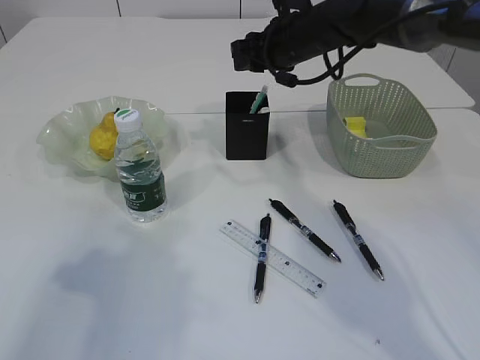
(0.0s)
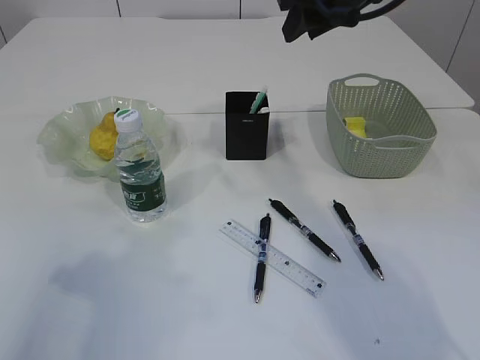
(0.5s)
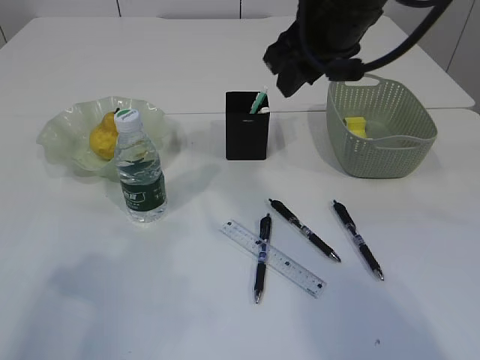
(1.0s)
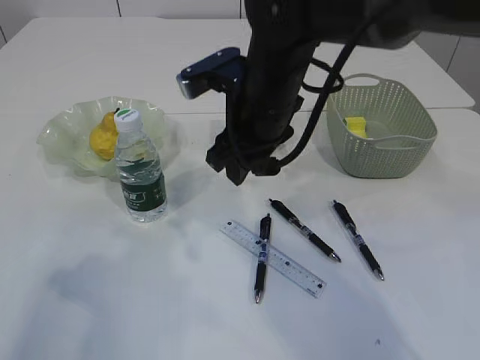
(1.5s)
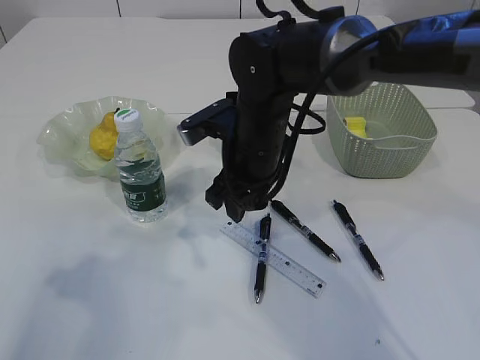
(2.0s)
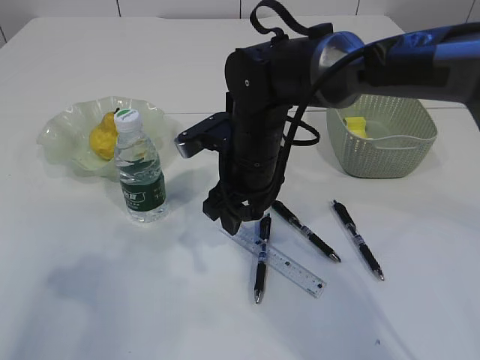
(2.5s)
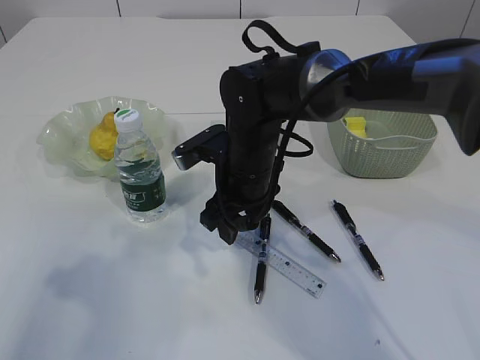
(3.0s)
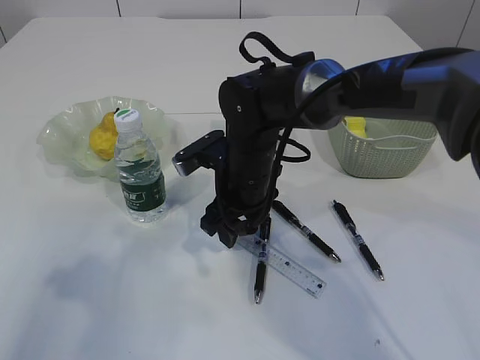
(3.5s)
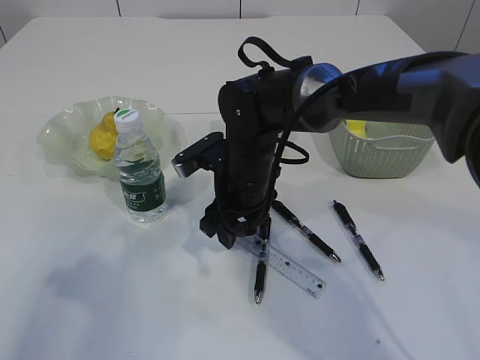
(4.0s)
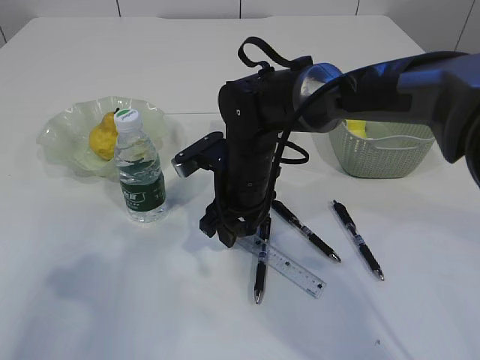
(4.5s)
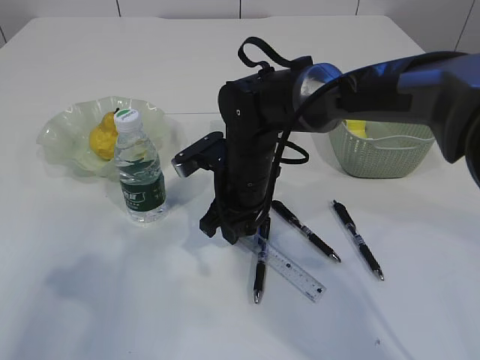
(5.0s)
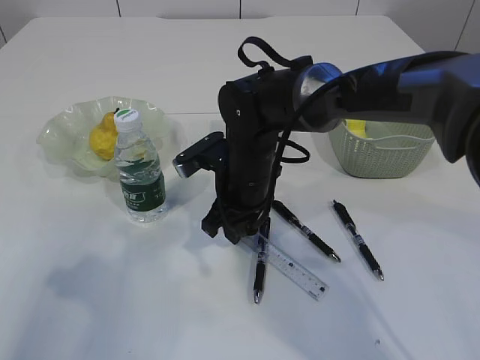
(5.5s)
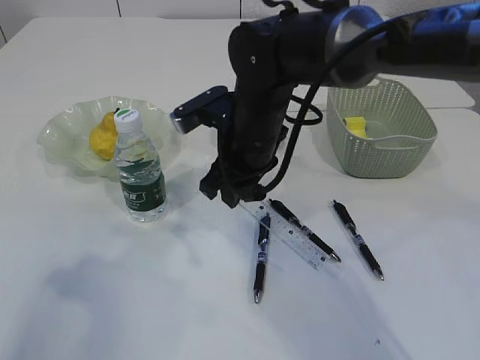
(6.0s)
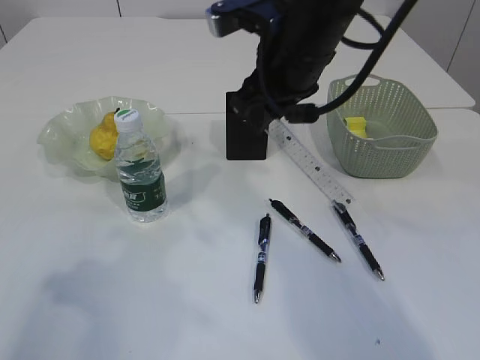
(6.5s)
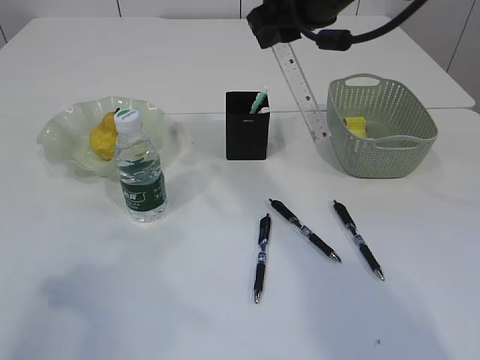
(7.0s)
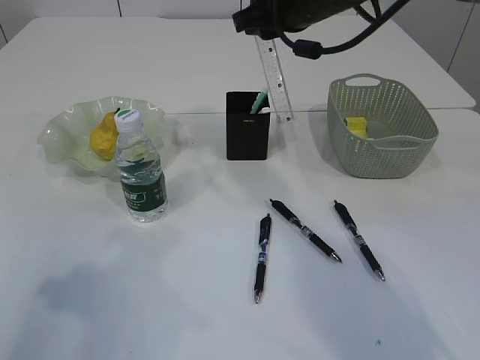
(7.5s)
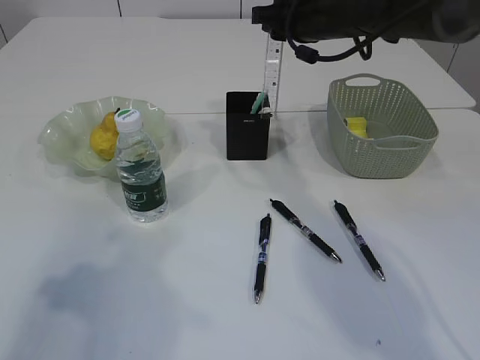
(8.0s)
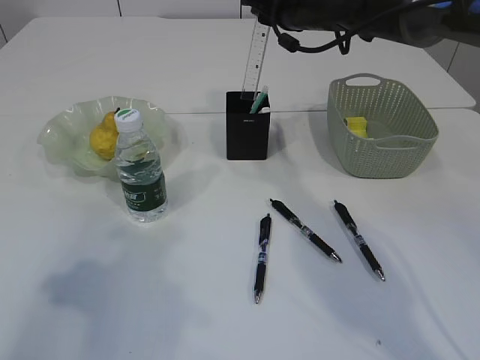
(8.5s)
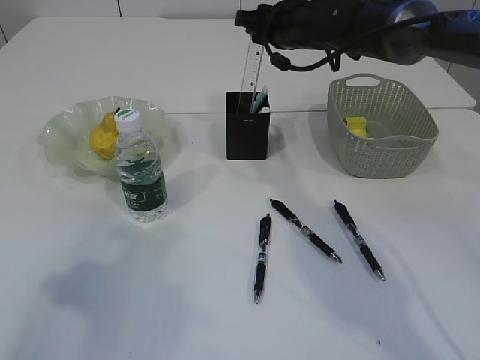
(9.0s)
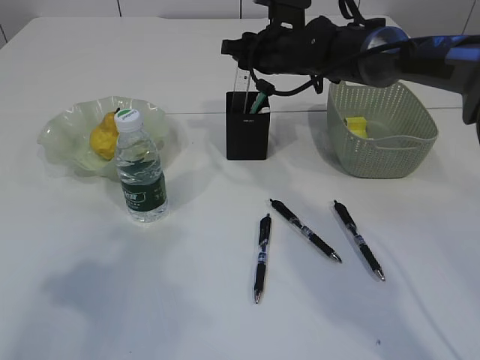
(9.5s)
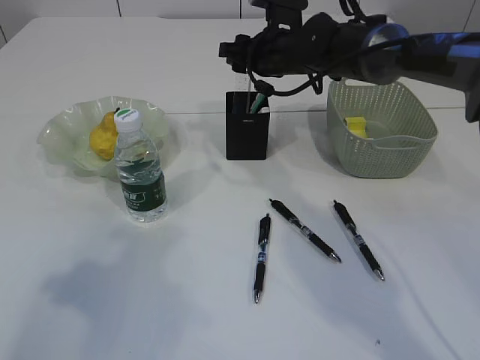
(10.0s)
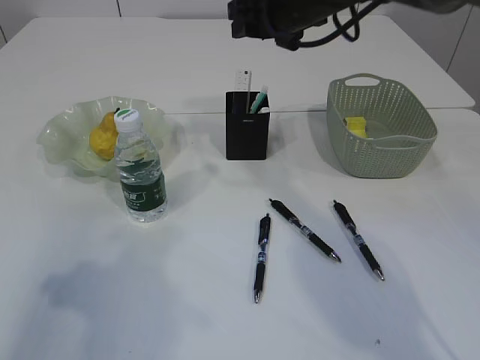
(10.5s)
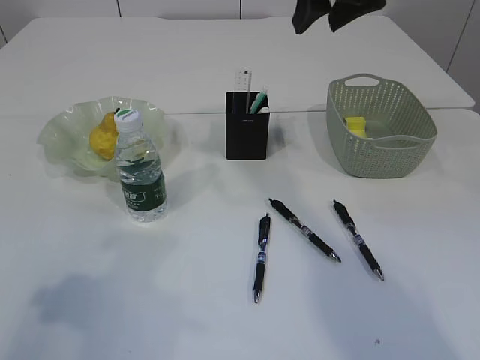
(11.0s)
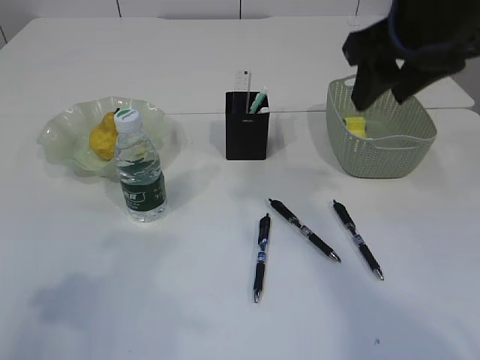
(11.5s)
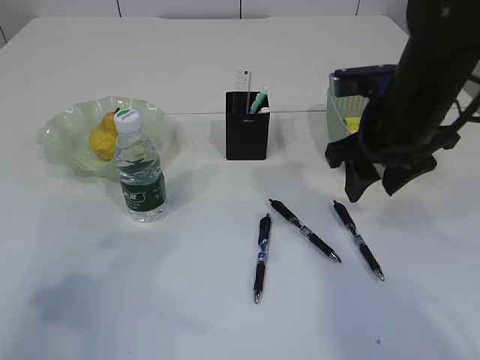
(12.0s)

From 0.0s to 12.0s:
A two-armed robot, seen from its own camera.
Step, from 0.5s to 6.5s: pick up the ruler.
Step, from 7.0s to 11.5s: Place the ruler into the pen holder.
From 0.0s to 2.0s: The right gripper travels backward, to the left and downward by about 15 cm.
From 2.0s to 4.0s: The grippers make only small movements.
From 4.0s to 6.0s: The right gripper moves upward, approximately 5 cm, and closes.
From 6.0s to 8.0s: The right gripper is displaced forward, to the right and upward by roughly 15 cm.
From 8.0s to 10.0s: The right gripper moves downward, roughly 5 cm.
From 10.0s to 12.0s: The right gripper is displaced backward and to the right by approximately 20 cm.

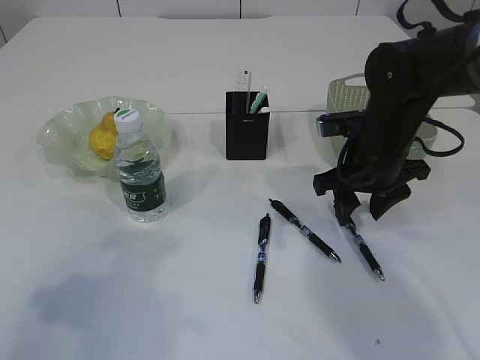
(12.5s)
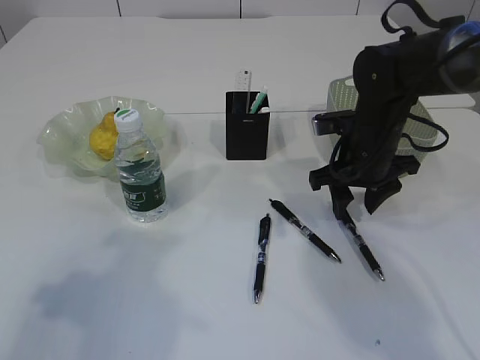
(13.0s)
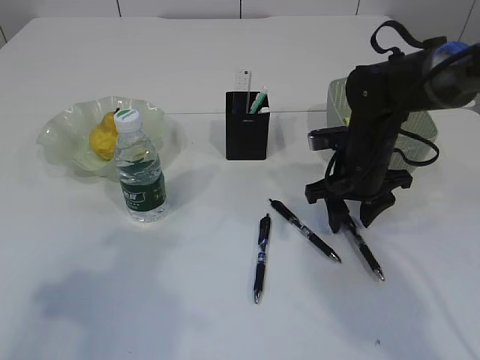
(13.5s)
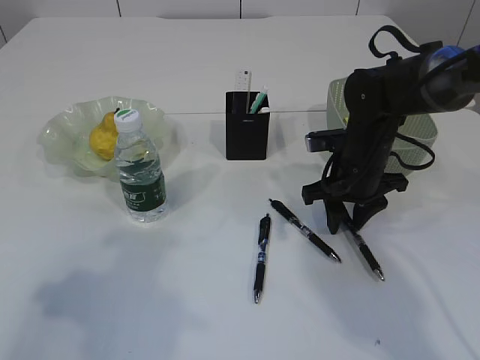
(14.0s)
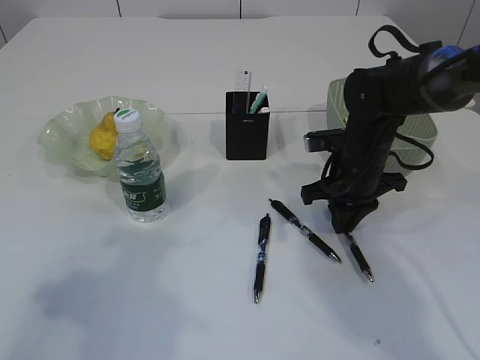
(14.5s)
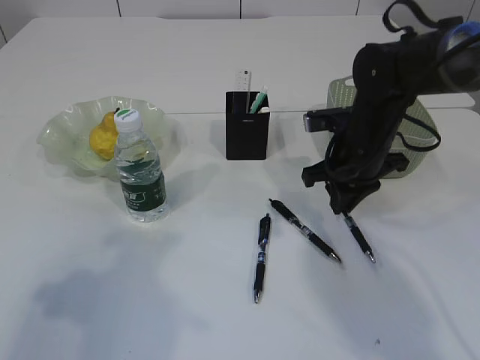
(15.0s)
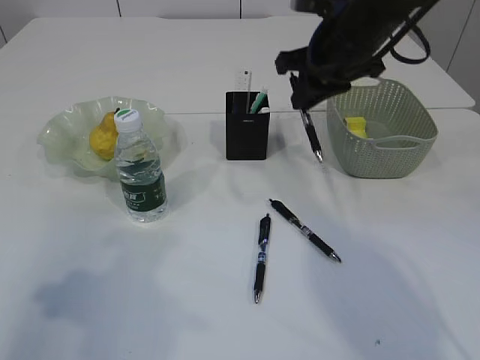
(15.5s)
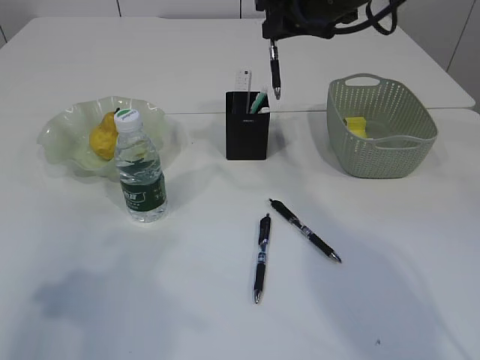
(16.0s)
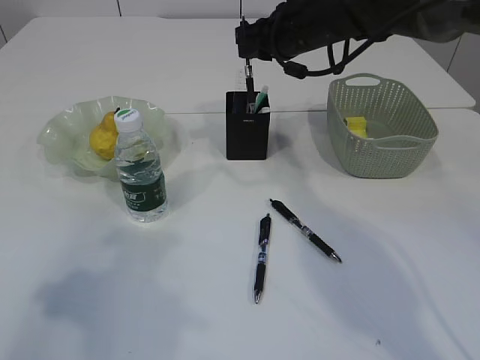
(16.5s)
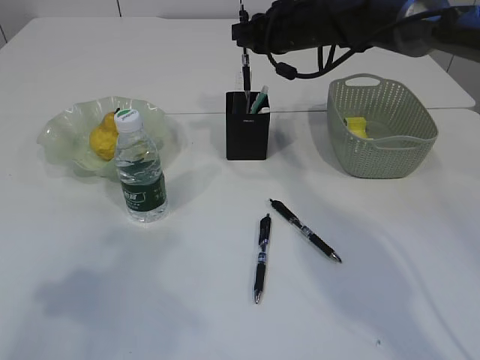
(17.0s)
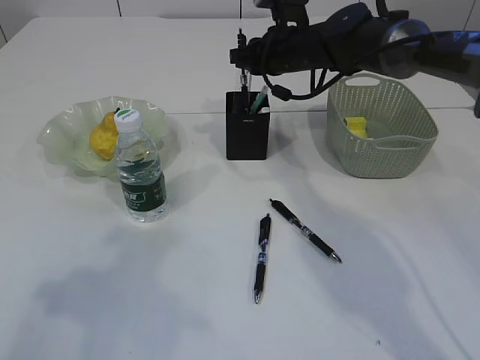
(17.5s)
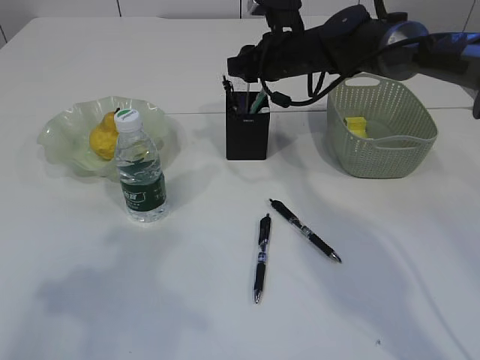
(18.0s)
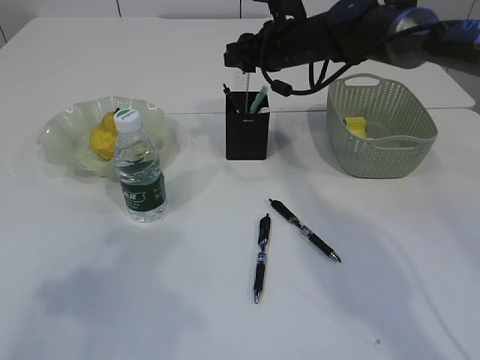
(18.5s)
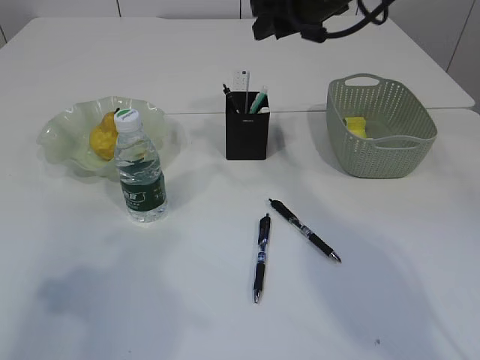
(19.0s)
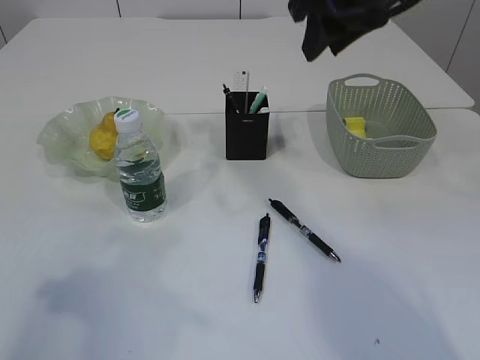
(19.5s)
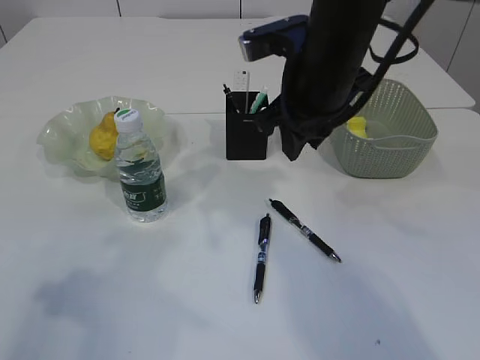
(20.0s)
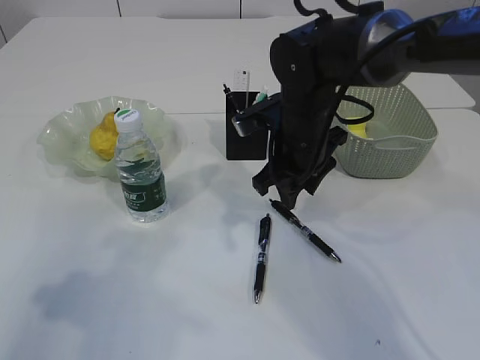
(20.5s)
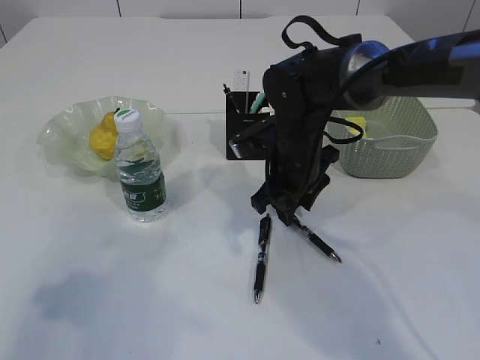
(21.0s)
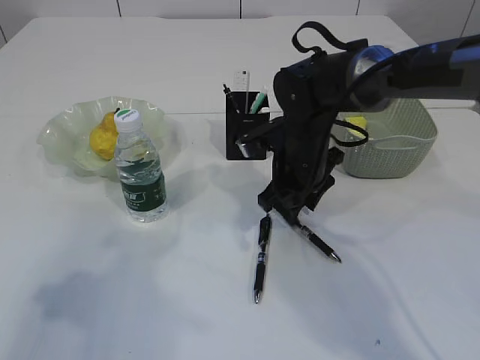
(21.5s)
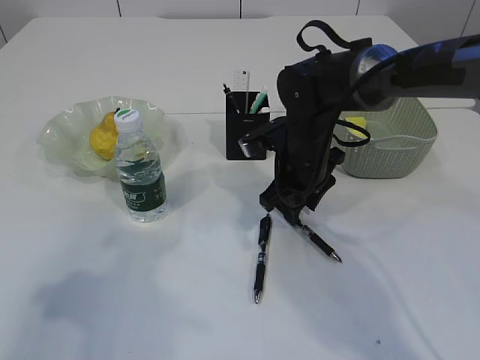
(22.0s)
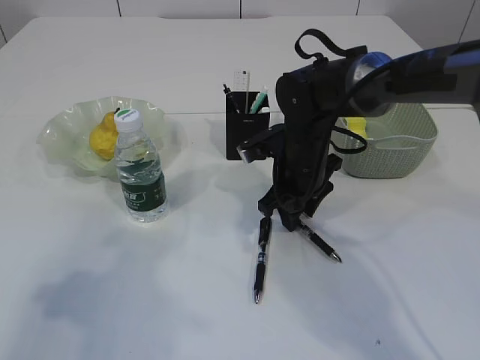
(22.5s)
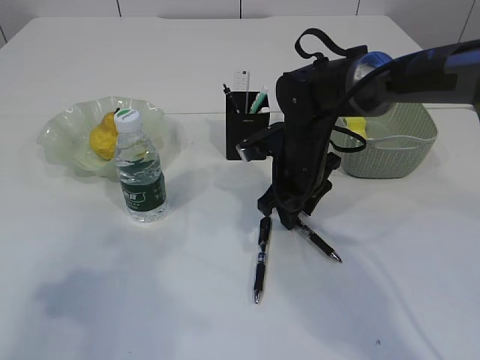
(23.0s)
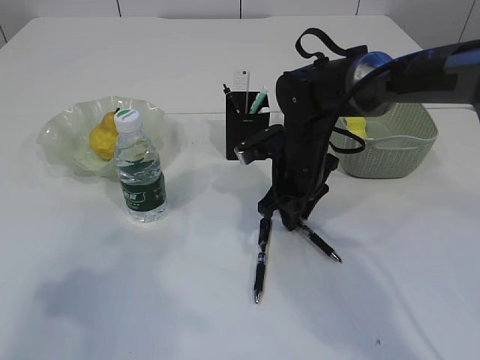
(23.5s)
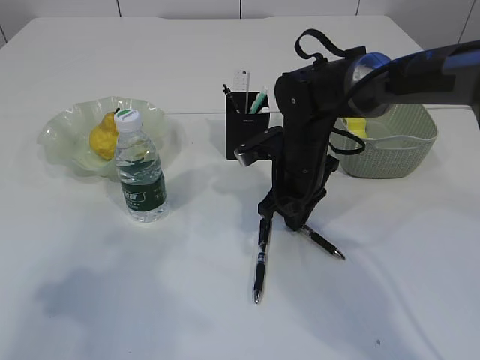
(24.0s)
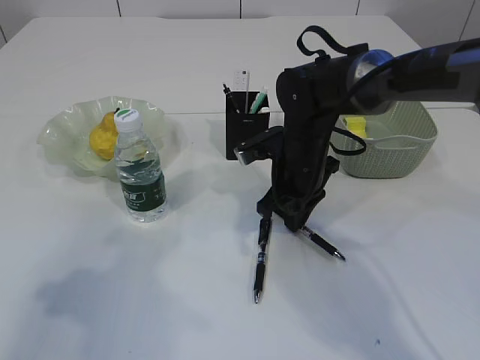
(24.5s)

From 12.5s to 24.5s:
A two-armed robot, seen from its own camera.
Step, from 12.5s to 15.5s: Pick up the pen with right arm.
Step, from 16.0s to 18.5s: Place the pen into the pen holder.
From 12.5s to 14.5s: The right gripper changes place by about 5 cm, and closes its fingers.
From 14.5s to 16.5s: The right gripper shifts about 20 cm upward, forward and to the left.
From 16.5s to 18.5s: The right gripper opens up.
From 18.5s to 20.5s: The right gripper shifts some 15 cm backward, and moves roughly 15 cm upward and comes back.
From 20.5s to 22.5s: The right gripper changes place by some 5 cm.
From 22.5s to 24.5s: The right gripper closes its fingers.

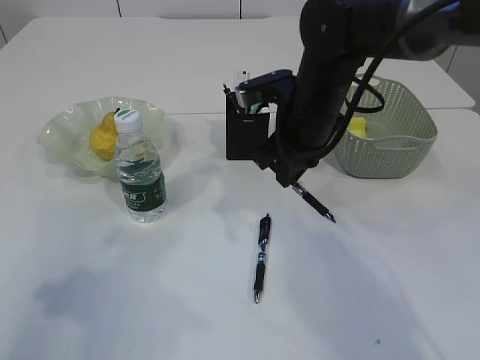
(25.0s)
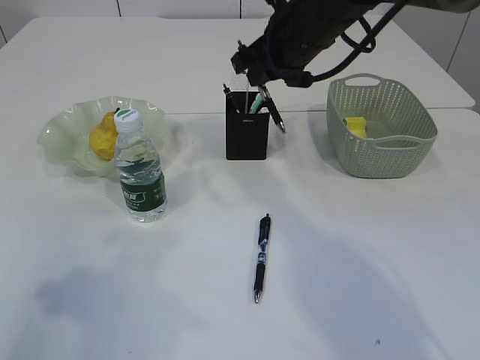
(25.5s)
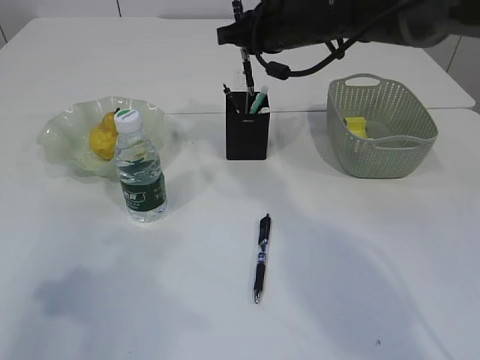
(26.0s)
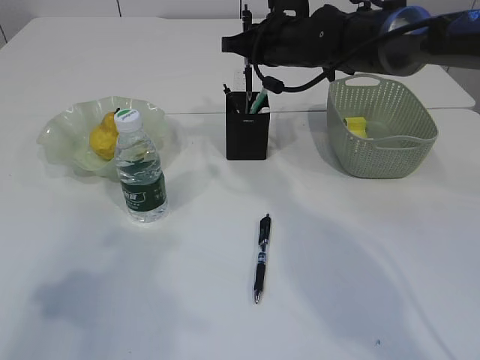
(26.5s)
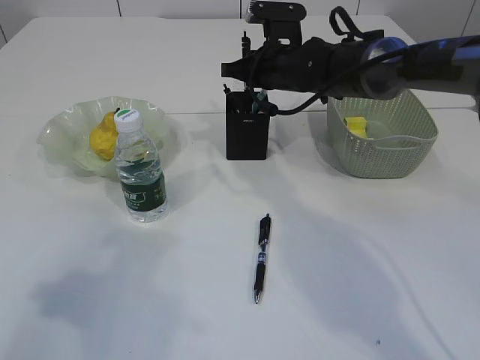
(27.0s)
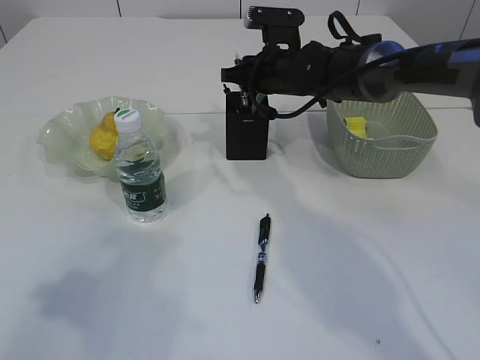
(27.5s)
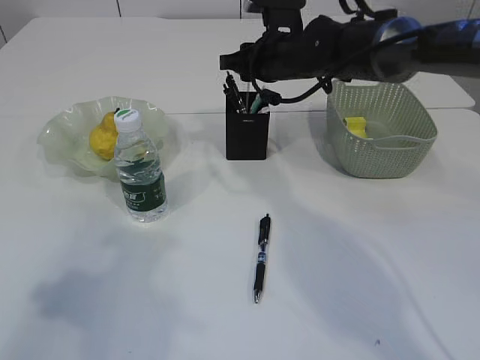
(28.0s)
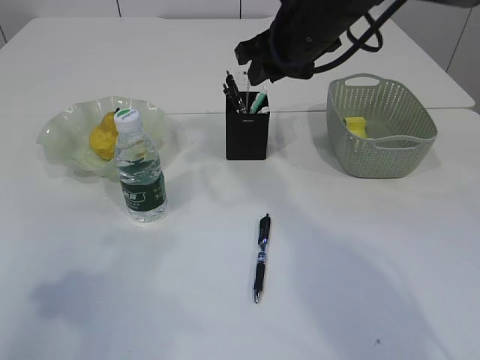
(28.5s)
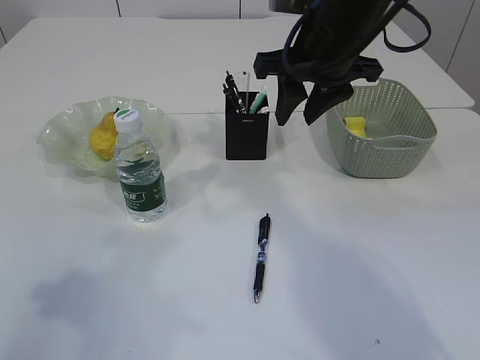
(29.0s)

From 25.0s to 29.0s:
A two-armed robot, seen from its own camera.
Step, from 25.0s to 28.0s: Place the pen into the pen holder.
From 25.0s to 27.0s: The right gripper heads forward, covering some 10 cm.
From 27.0s to 29.0s: The right gripper shifts roughly 15 cm backward and upward, and opens.
